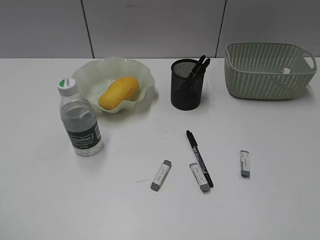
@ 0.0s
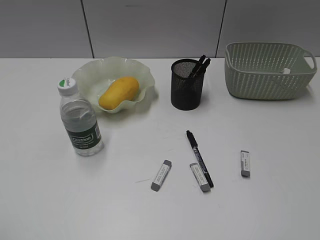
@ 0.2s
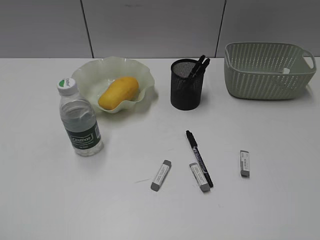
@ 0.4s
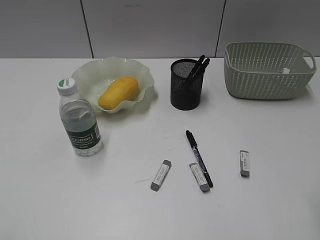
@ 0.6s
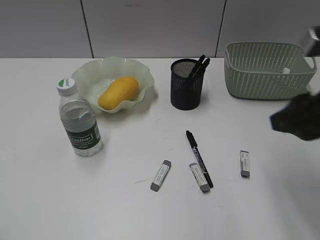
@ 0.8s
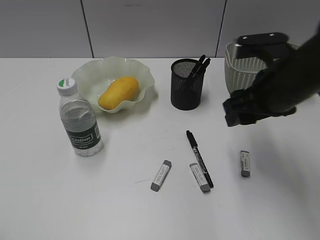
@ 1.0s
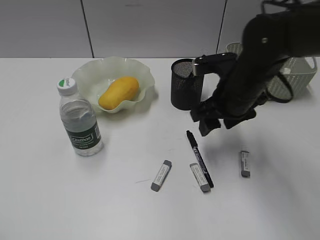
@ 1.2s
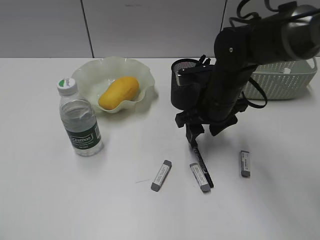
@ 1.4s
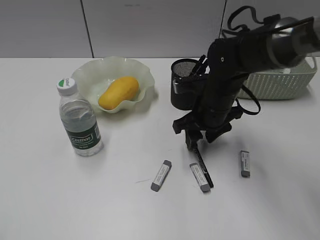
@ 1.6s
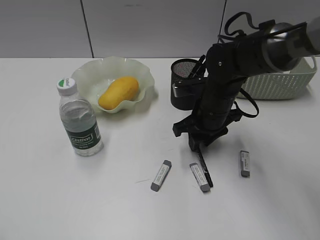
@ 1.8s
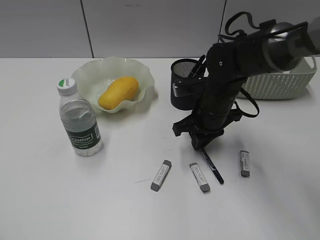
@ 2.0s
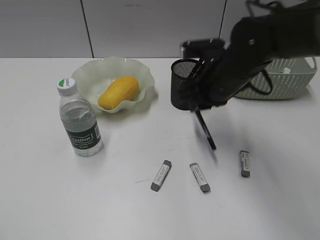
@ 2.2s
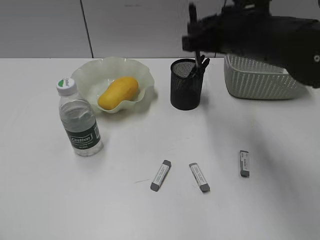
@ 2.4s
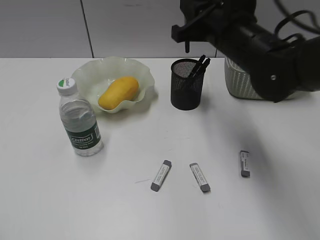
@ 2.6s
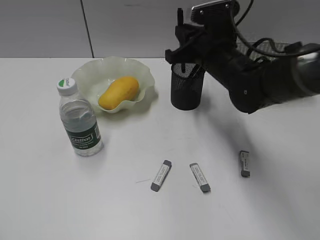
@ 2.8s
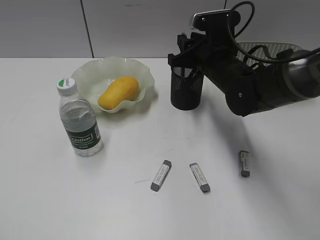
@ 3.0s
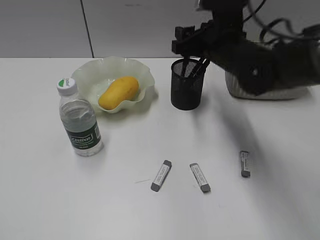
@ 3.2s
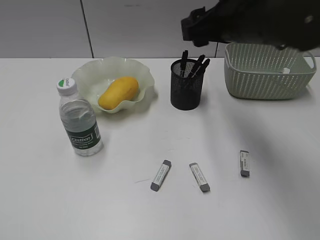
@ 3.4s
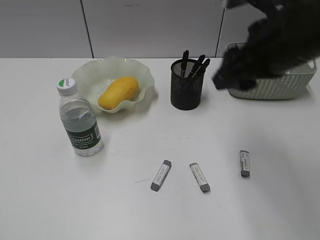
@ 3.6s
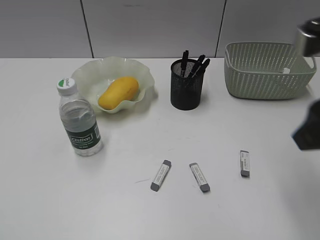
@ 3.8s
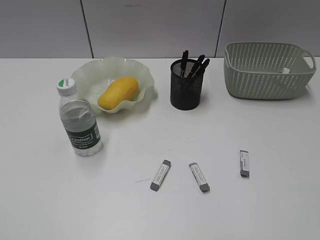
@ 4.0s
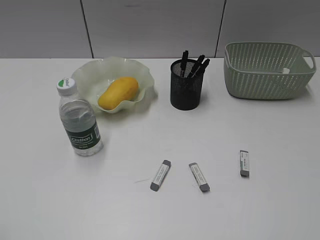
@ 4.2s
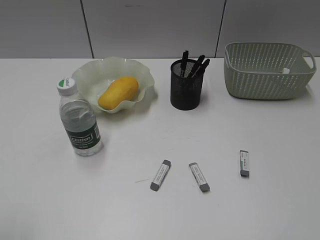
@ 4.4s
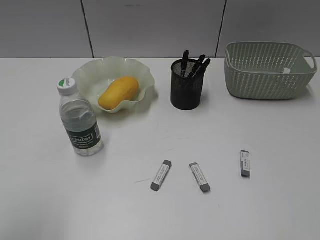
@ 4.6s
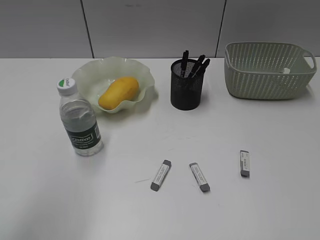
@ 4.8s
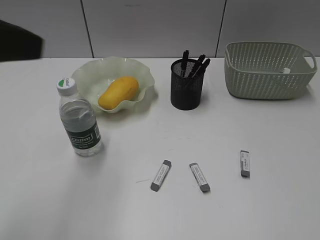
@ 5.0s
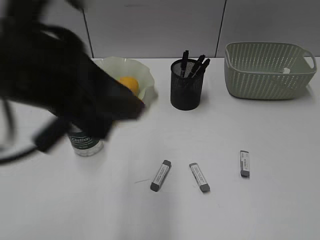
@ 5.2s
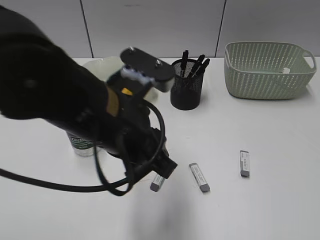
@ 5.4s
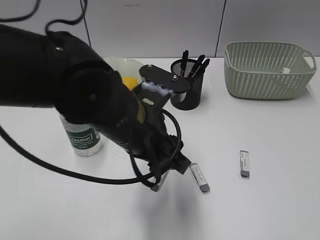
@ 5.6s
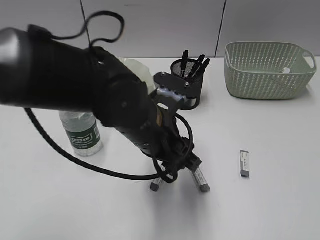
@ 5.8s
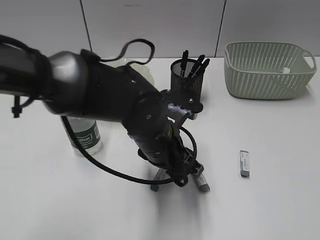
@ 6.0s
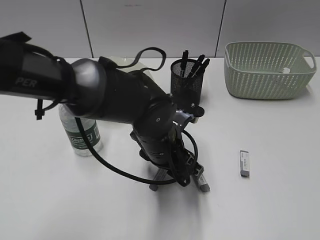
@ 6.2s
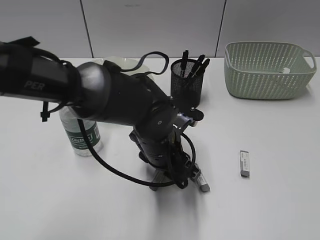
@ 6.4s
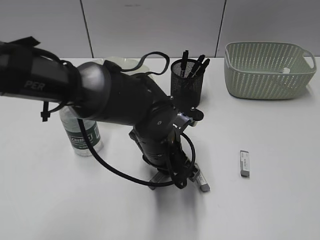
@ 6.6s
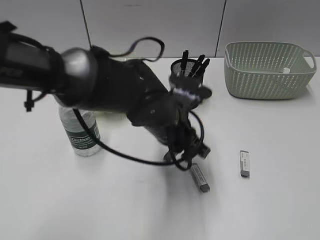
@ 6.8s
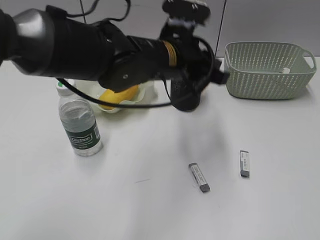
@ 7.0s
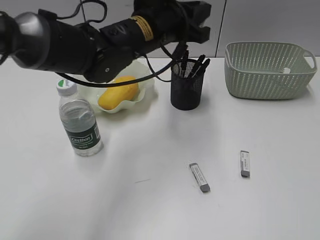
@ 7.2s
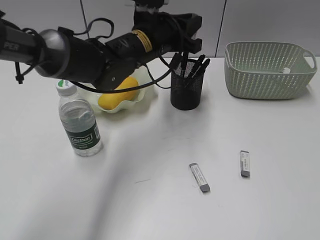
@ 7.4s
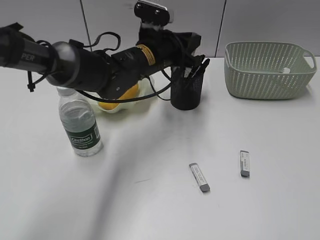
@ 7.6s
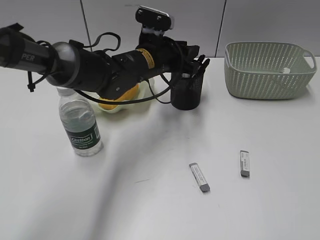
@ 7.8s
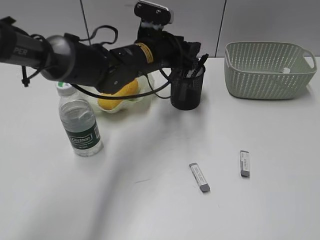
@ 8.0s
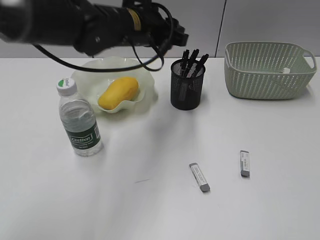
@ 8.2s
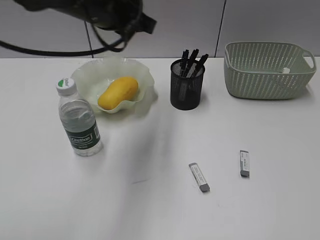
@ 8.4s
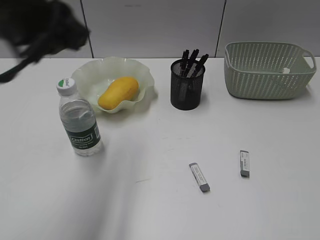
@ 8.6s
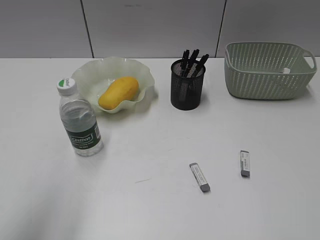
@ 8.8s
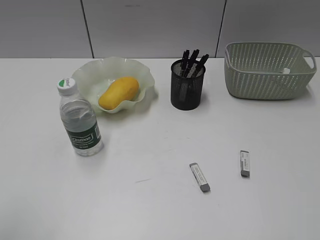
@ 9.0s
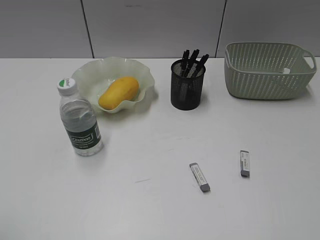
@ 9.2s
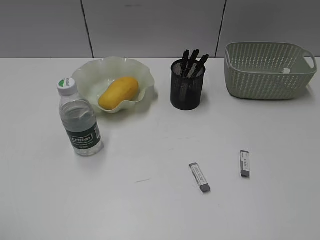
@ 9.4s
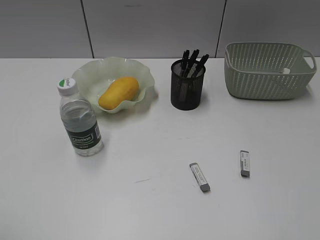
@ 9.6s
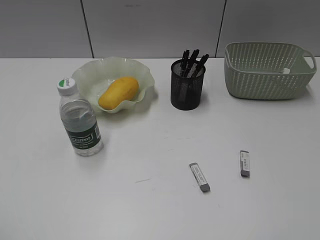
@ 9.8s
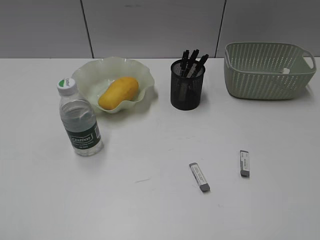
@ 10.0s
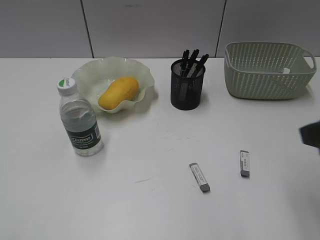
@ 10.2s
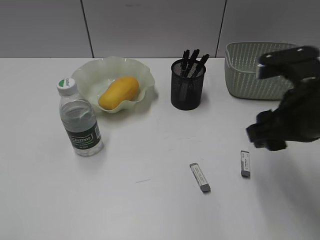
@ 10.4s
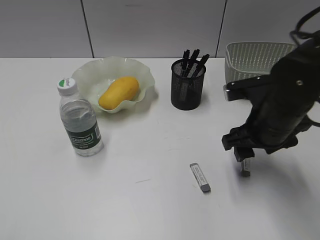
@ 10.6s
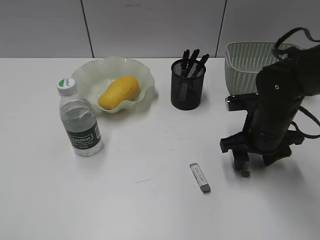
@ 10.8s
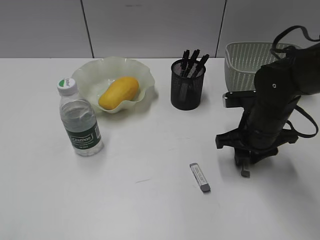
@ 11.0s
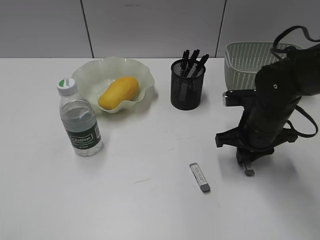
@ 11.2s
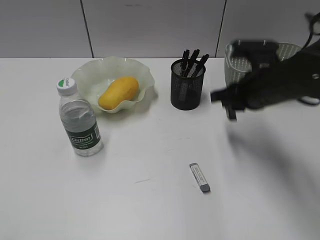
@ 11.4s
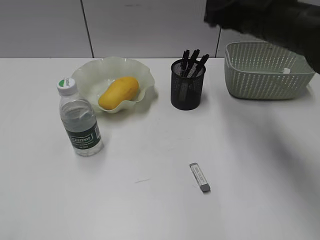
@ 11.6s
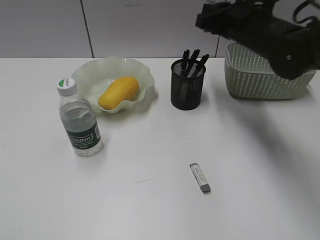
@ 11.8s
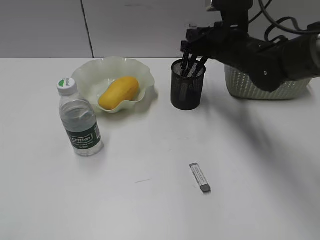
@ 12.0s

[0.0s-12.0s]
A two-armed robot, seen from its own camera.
Step, 0.0s to 2.0s: Grasp the black pen with right gripper.
Step, 2.2s to 3.2s: Place the black pen in pen holder with right gripper.
Step, 3.4s to 6.6s: Grasp the eraser with left gripper.
Step, 6.8s to 8.0s: Place the eraser in pen holder with left gripper.
Step, 8.2s to 11.0s: Grasp the eraser with right gripper.
0.0s to 1.6s: The right gripper moves forward, to the left and downward, some 40 cm, and opens its fingers.
1.6s to 3.0s: The right gripper reaches about 15 cm upward, then returns, and closes, then reopens.
3.0s to 4.4s: The right gripper travels backward and to the right by some 40 cm.
4.4s to 6.0s: The left gripper is displaced to the right, forward and downward by some 40 cm.
6.0s to 7.6s: The left gripper is displaced forward by some 15 cm, and closes up.
7.6s to 9.0s: The left gripper travels backward and to the left by about 50 cm, and opens up.
9.0s to 10.4s: The left gripper shifts some 5 cm backward. Meanwhile the right gripper moves forward and to the left, roughly 25 cm.
10.4s to 12.0s: The right gripper goes approximately 20 cm forward, and closes its fingers.

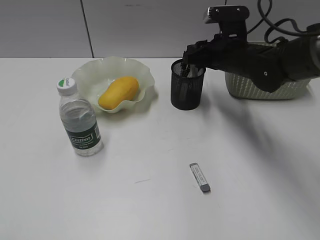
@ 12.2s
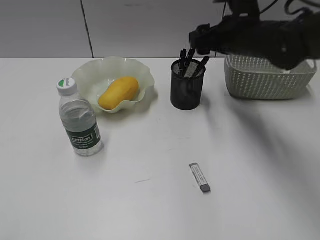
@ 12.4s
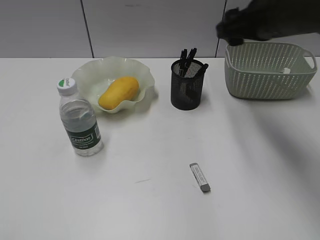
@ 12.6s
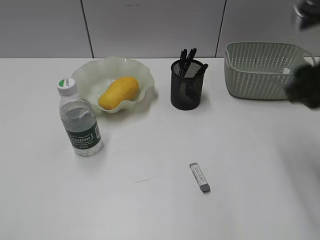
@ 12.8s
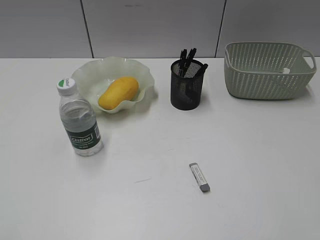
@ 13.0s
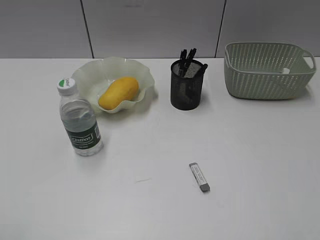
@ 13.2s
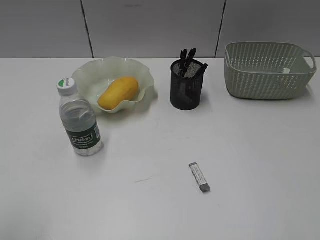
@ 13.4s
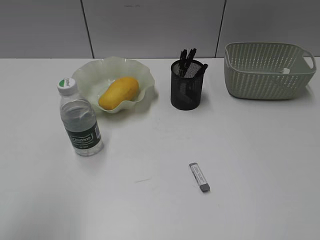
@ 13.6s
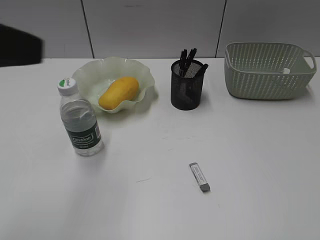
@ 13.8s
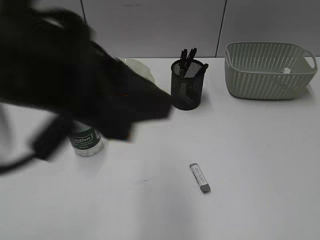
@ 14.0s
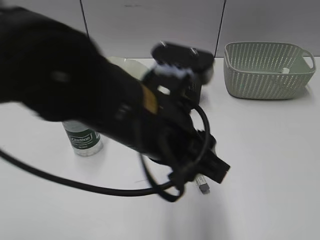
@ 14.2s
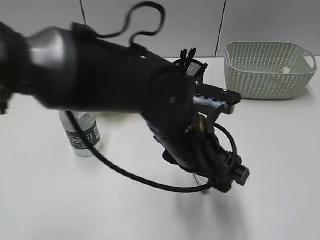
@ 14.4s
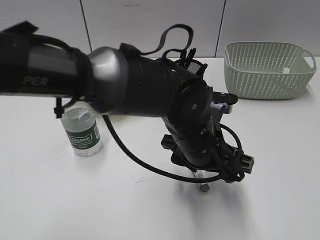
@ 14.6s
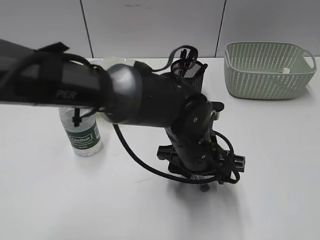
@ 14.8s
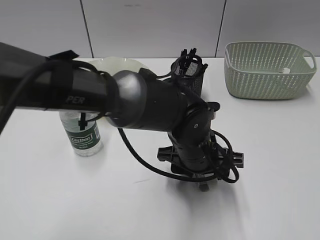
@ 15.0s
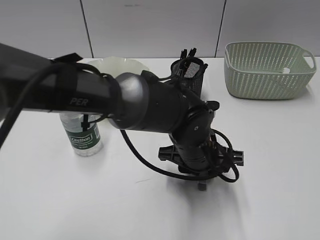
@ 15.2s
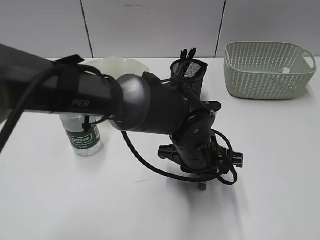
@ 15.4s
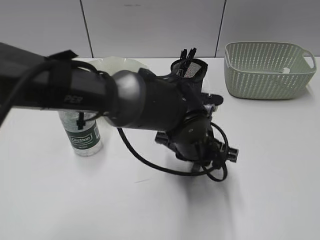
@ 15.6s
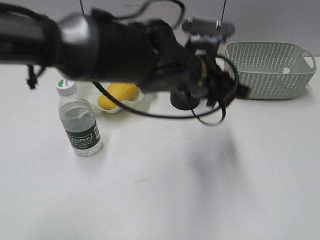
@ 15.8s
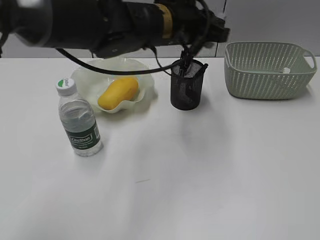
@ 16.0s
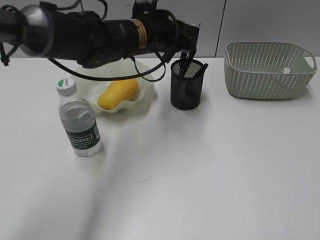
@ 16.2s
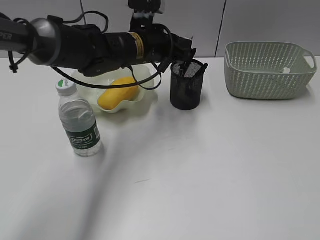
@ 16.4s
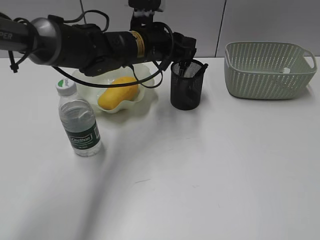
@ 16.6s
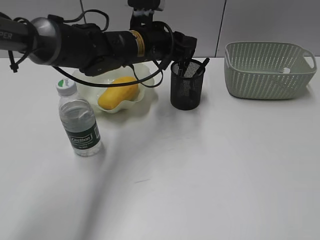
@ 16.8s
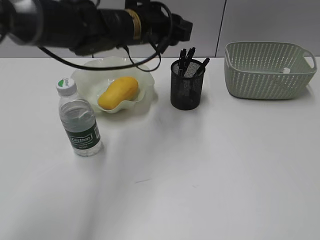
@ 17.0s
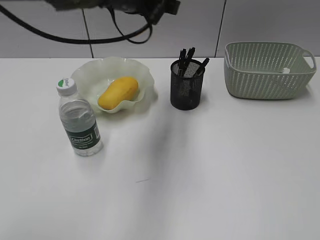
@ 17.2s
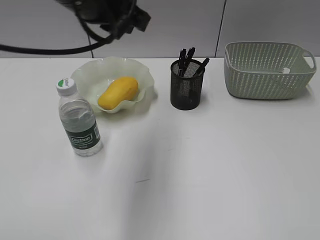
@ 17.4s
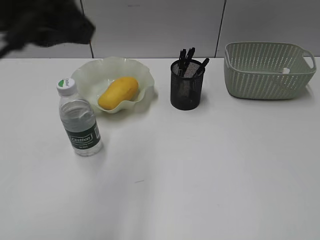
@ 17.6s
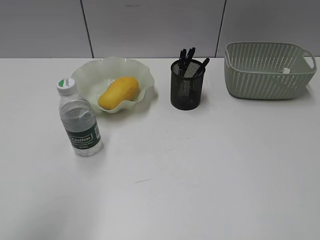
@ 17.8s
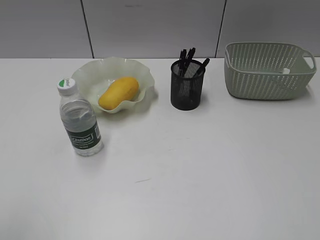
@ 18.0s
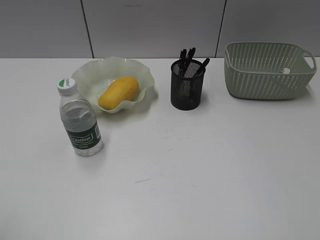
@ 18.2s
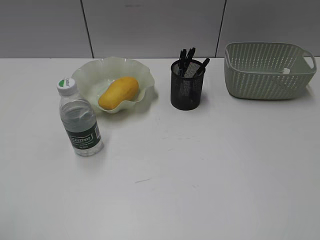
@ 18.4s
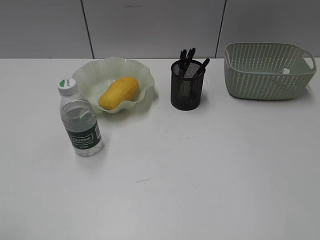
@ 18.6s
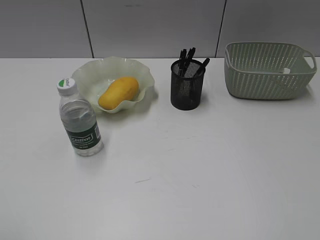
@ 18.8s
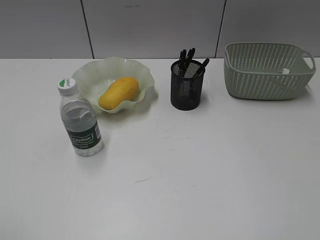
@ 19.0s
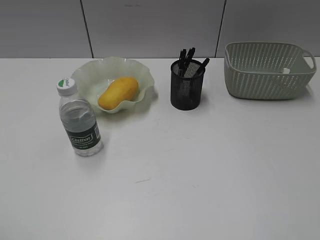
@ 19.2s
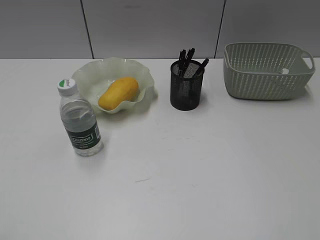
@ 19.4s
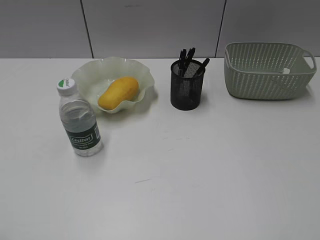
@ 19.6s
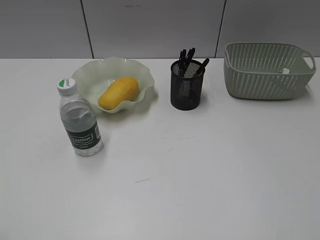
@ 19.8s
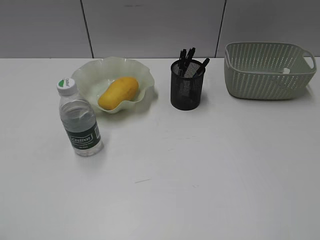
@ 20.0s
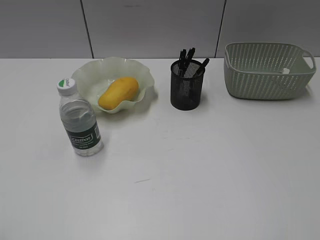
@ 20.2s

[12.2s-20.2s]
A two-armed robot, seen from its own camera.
Step, 12.6s to 15.4s: Grasp the eraser with left gripper.
Step, 15.6s to 16.8s: Place the eraser in pen holder with left gripper.
12.2s to 13.8s: The left gripper is displaced forward, to the right and upward by approximately 20 cm, and closes up. Meanwhile the right gripper shifts some 40 cm backward and to the right.
13.8s to 15.4s: The left gripper travels to the right, downward and forward by about 40 cm, and opens and closes again.
15.4s to 17.0s: The left gripper heads forward, upward and to the left, covering about 20 cm.
17.0s to 18.6s: The left gripper moves backward and to the left, roughly 50 cm, and opens.

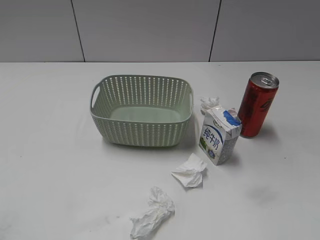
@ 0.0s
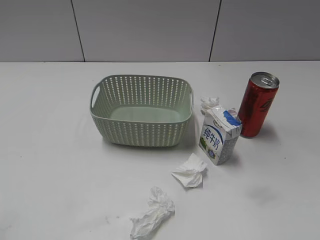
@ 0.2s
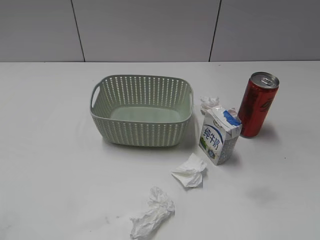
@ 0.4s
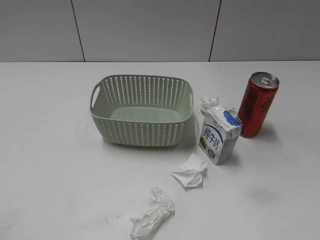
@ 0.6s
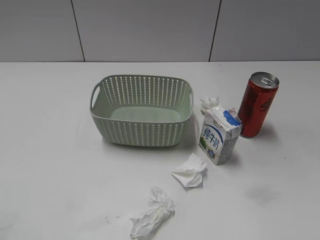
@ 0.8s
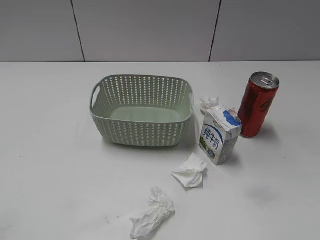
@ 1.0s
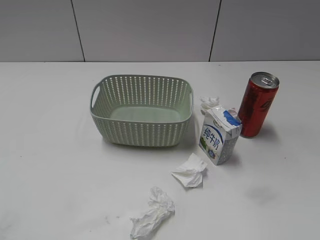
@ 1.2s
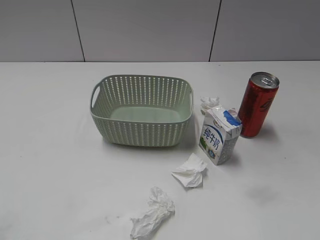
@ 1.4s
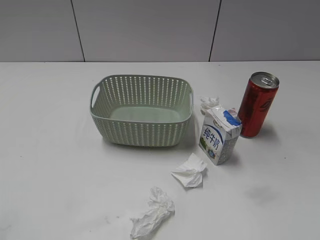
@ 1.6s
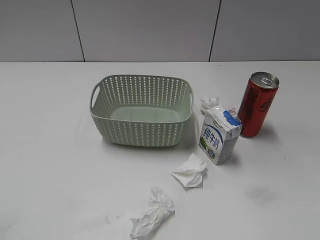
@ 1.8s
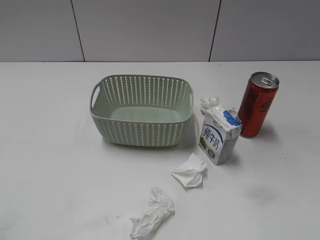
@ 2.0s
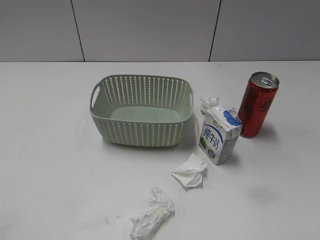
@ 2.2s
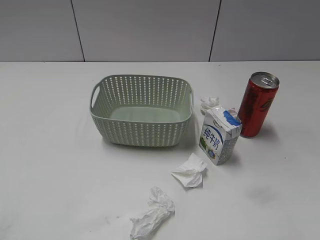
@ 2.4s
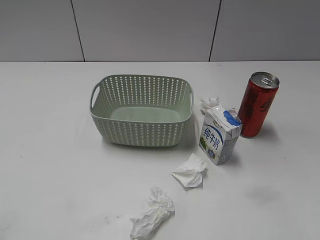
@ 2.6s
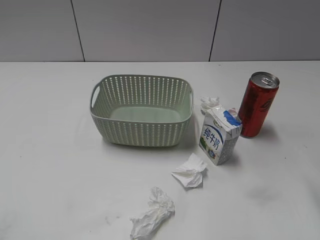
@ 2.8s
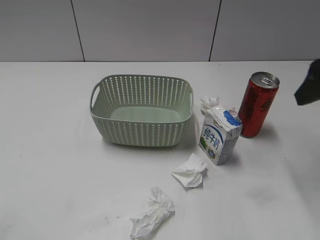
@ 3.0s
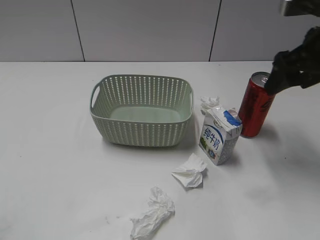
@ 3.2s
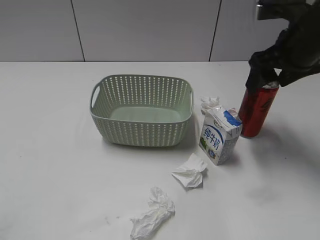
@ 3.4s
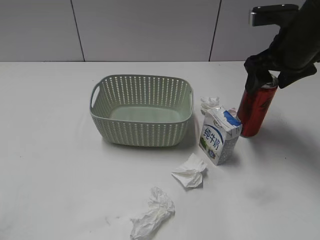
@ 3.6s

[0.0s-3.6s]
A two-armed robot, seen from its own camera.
1.8s to 3.6s: The right gripper goes approximately 35 cm forward.
